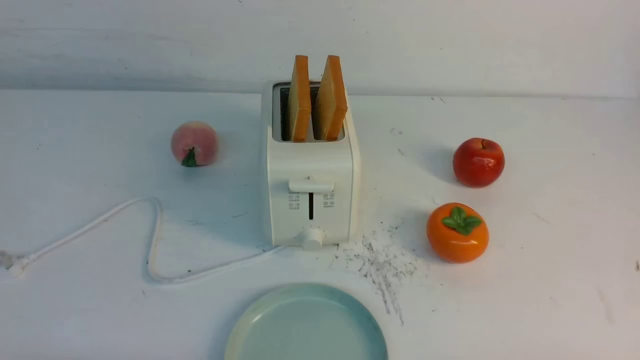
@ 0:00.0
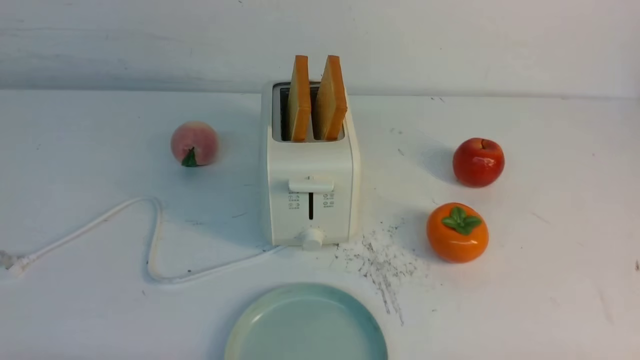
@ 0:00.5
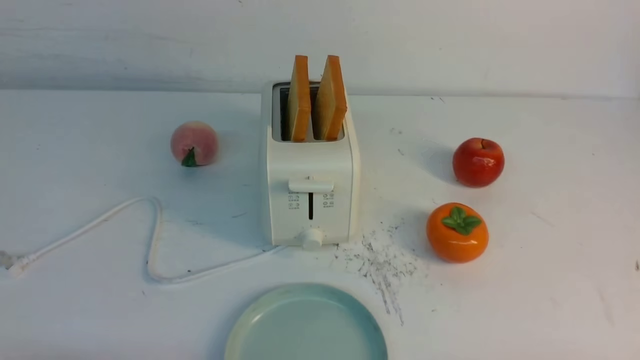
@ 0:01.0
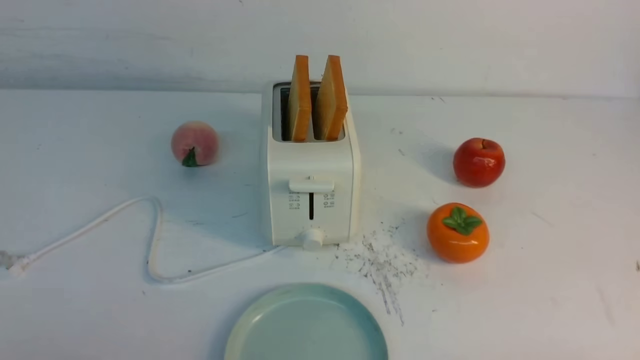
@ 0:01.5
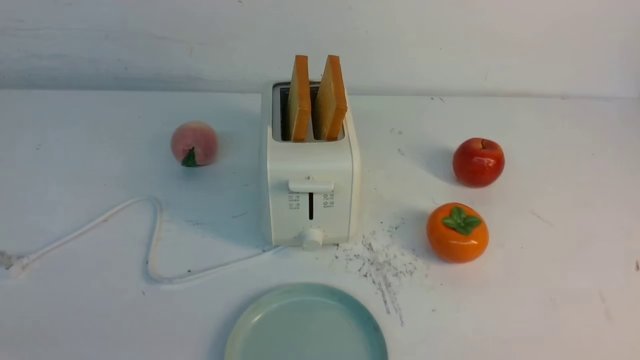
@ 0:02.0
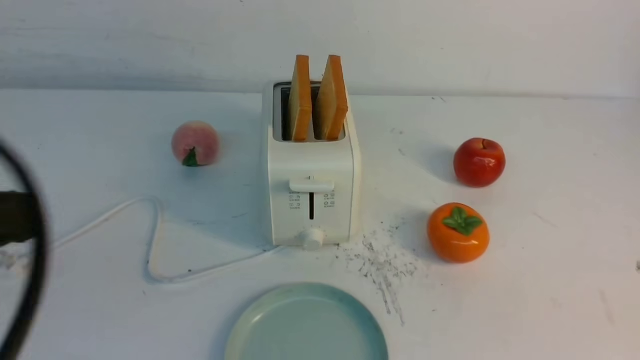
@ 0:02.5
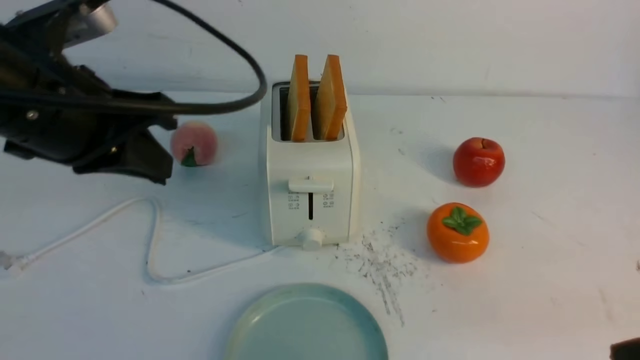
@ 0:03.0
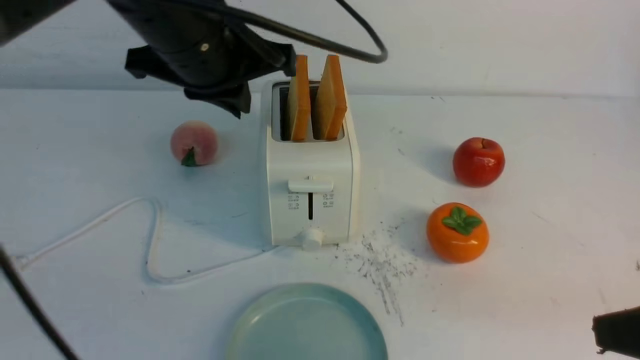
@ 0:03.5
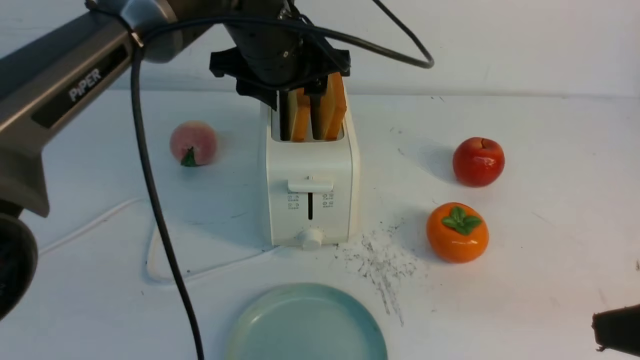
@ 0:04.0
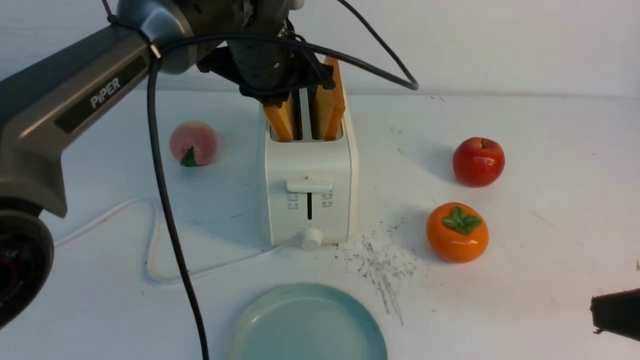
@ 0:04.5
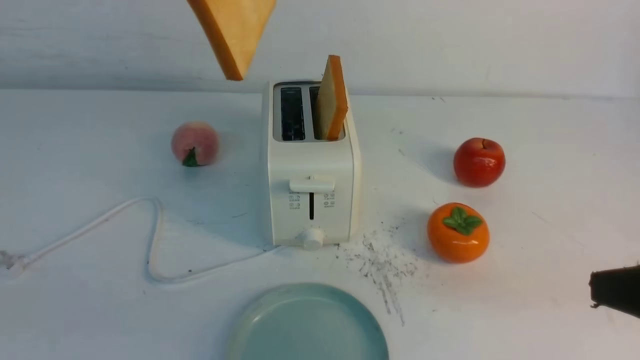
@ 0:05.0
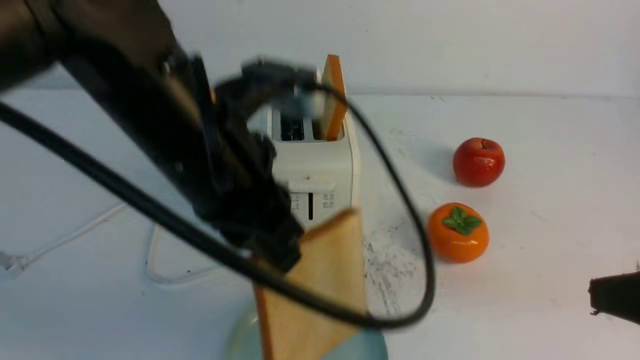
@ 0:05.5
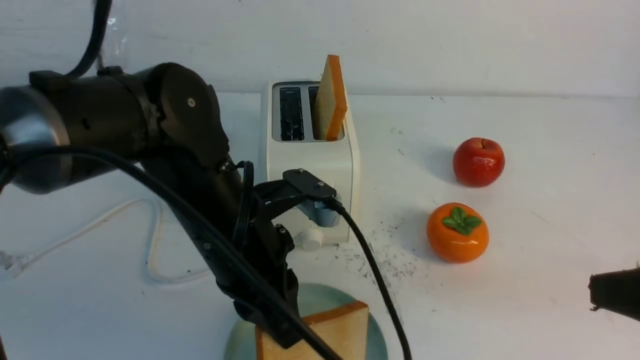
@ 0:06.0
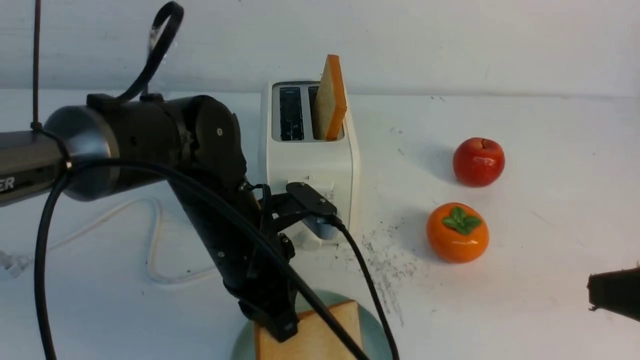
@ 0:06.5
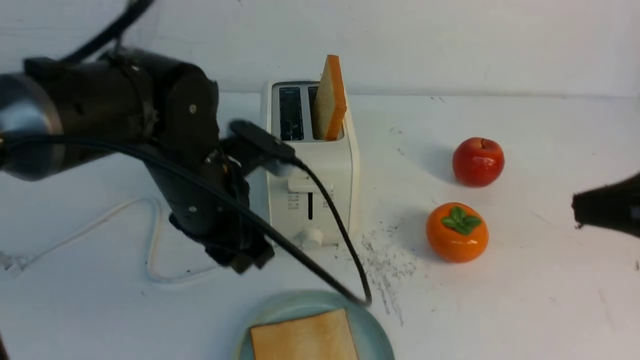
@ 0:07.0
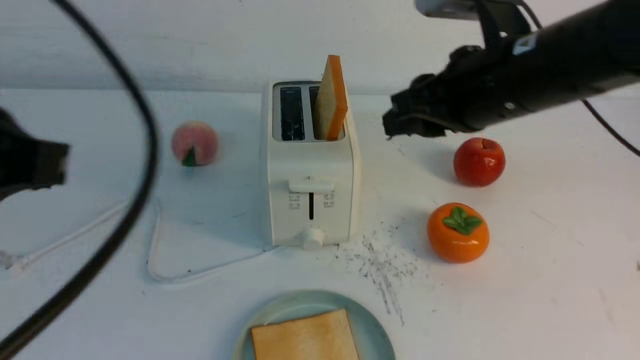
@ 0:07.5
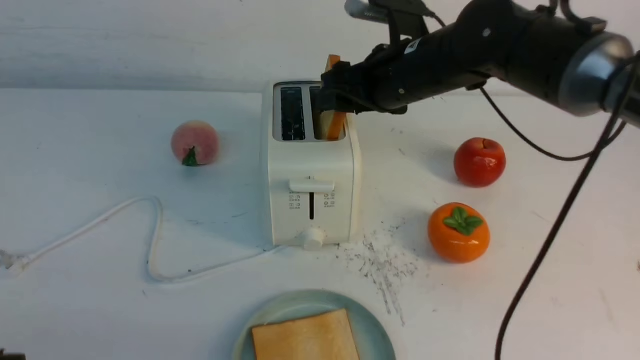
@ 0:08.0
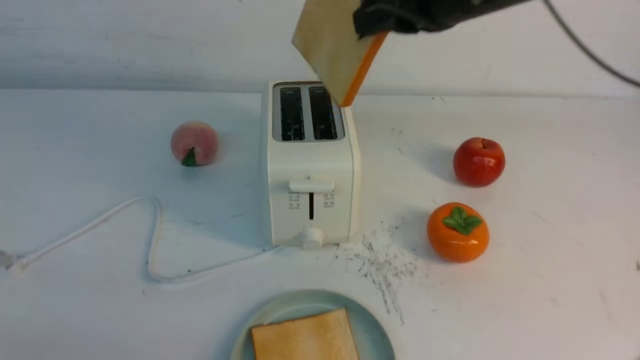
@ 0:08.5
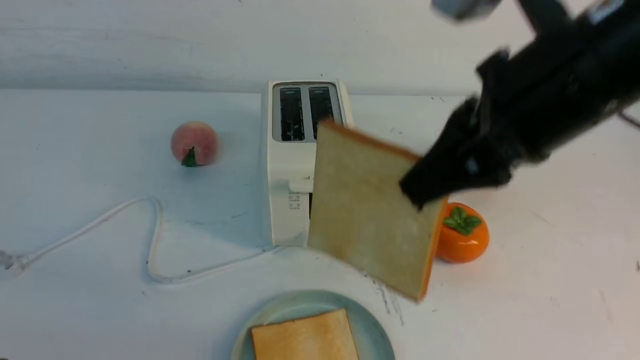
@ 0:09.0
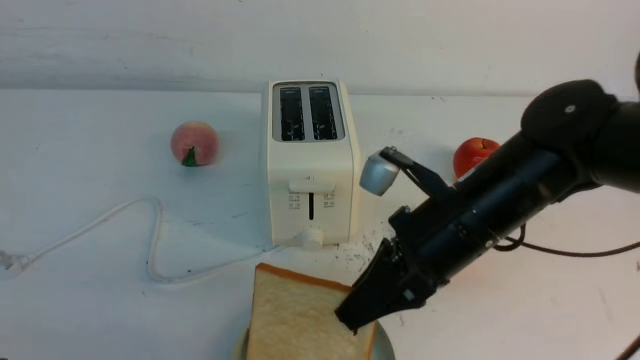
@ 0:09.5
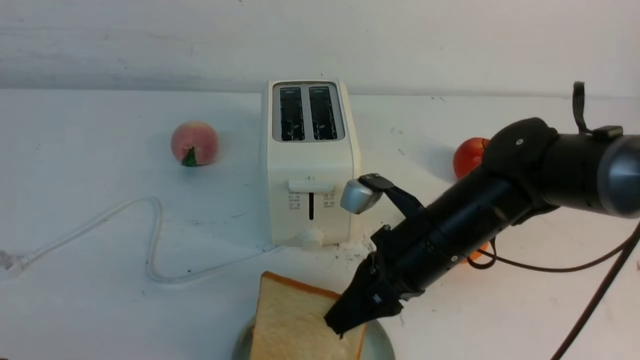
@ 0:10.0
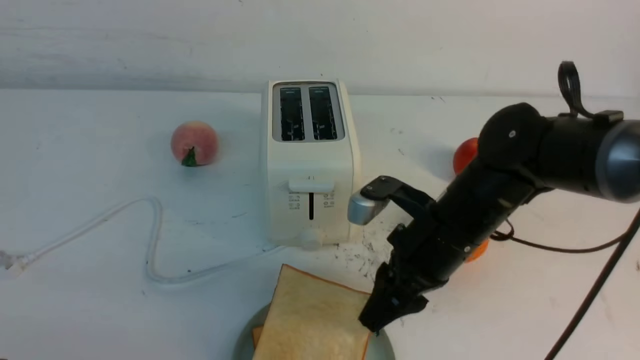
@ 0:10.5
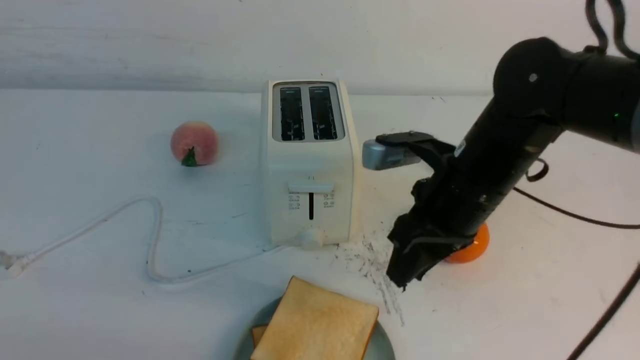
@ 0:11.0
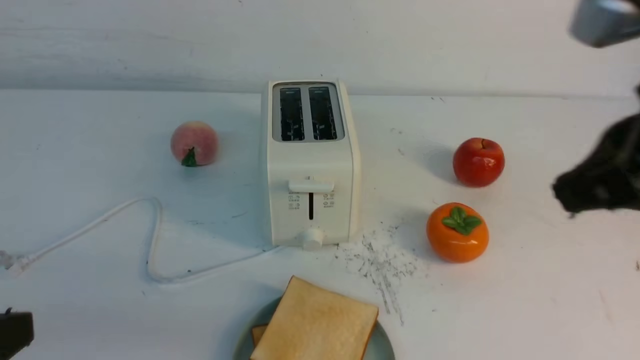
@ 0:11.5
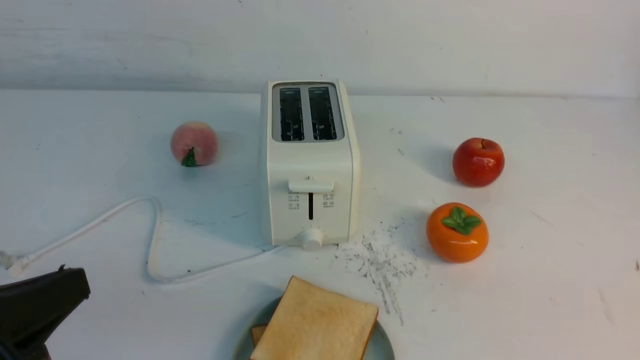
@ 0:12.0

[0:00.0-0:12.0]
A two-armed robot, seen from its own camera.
Task of the whole recording: take toasted bread from bread machine on white table place on plate.
Step, 0:00.0 to 0:04.5: use the left arm to take out a slice of bread.
Step, 0:05.0 to 0:06.5: use the left arm to put a slice of bread into the empty plate.
Step, 0:07.5 to 0:08.0: use the right arm to take out a slice of bread.
Step, 0:08.5 to 0:10.5: use the right arm to put a slice of bread into the plate.
0:02.0 to 0:04.0: The left gripper moves forward and to the right, about 40 cm, and opens. Meanwhile the right gripper goes about 15 cm upward, forward and to the left.
0:04.0 to 0:06.0: The left gripper heads backward and downward, covering some 15 cm, and closes up.
0:06.0 to 0:08.0: The right gripper travels forward and to the left by about 35 cm, and opens its fingers, while the left gripper heads backward and to the left, covering about 25 cm, and opens, then closes again.
0:08.0 to 0:10.0: The right gripper moves backward and downward, approximately 15 cm, and closes.
0:10.0 to 0:12.0: The right gripper shifts approximately 35 cm backward and to the right, and closes its fingers.

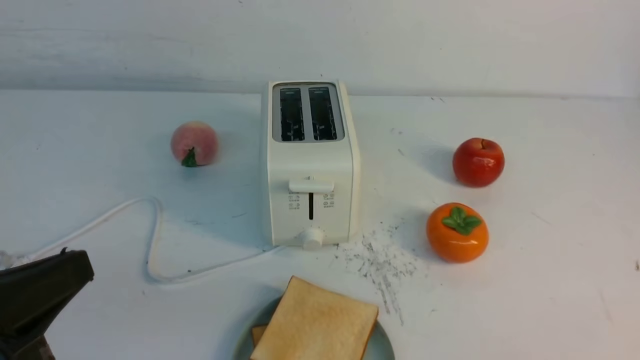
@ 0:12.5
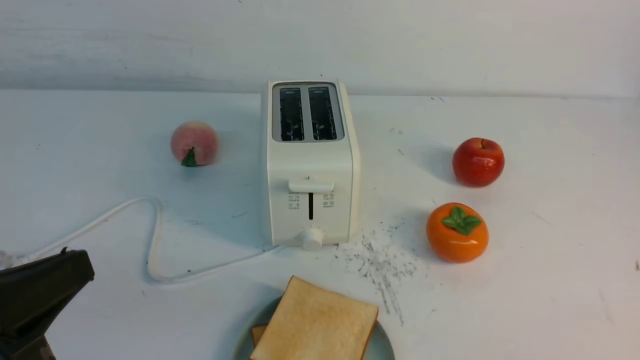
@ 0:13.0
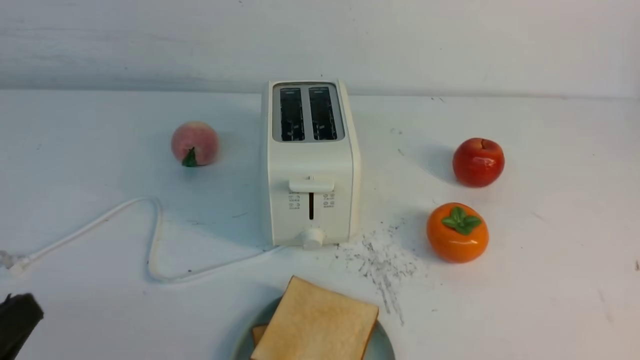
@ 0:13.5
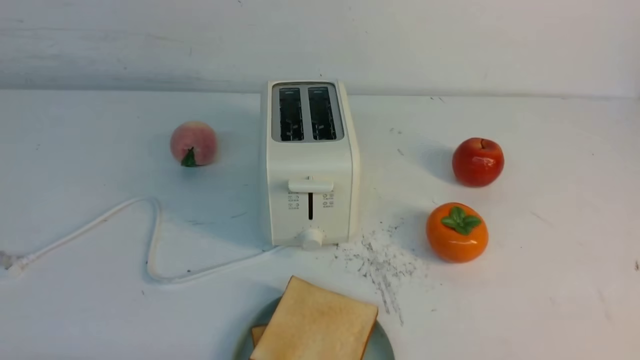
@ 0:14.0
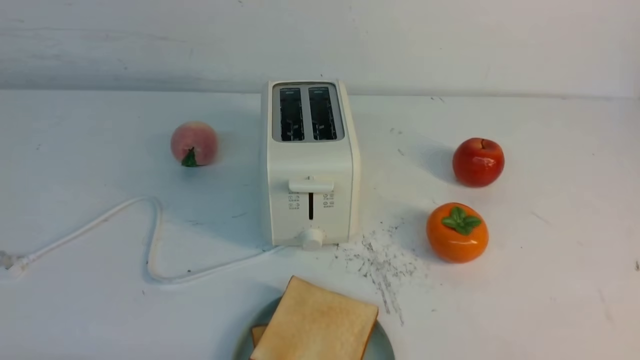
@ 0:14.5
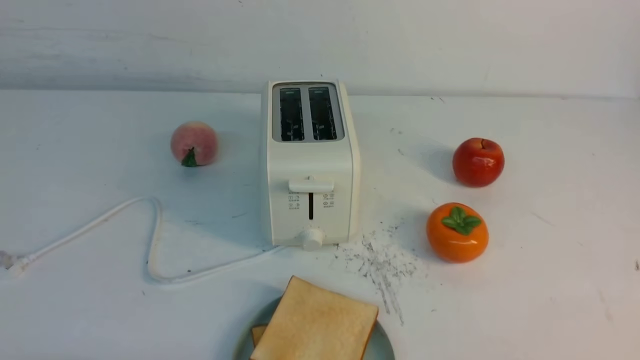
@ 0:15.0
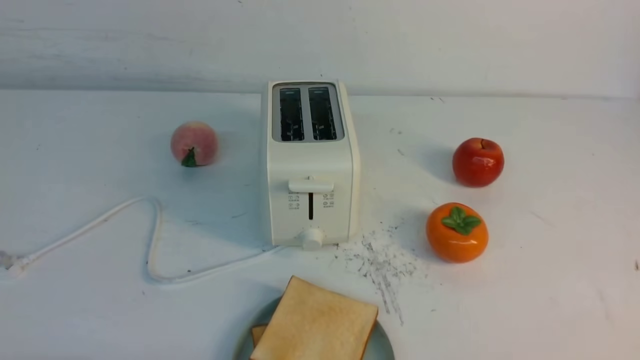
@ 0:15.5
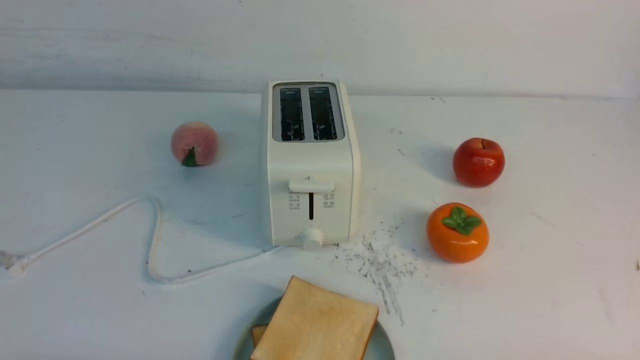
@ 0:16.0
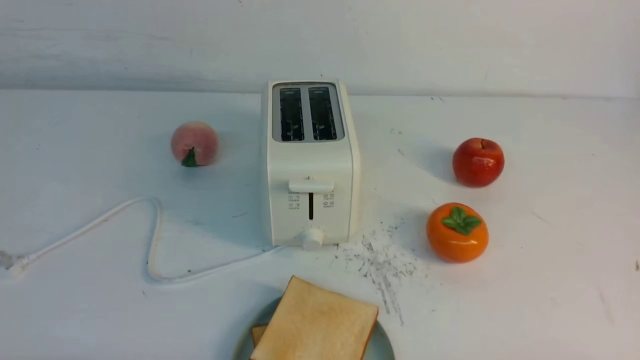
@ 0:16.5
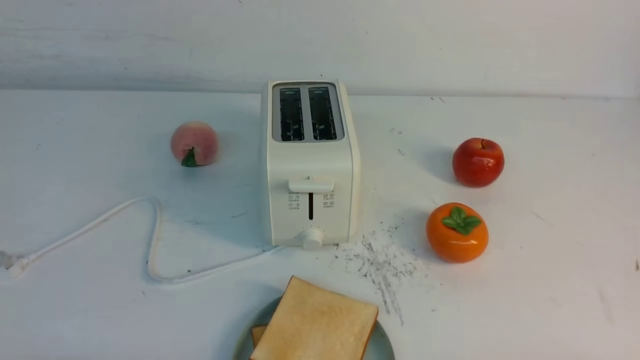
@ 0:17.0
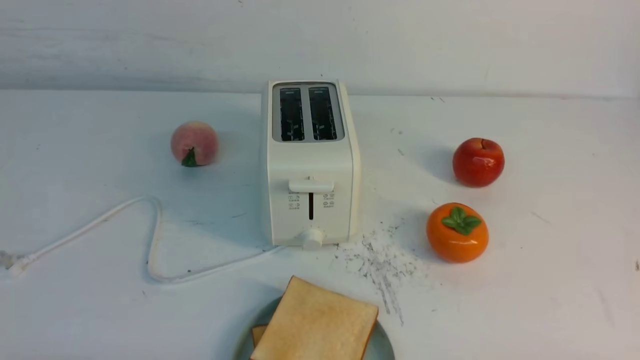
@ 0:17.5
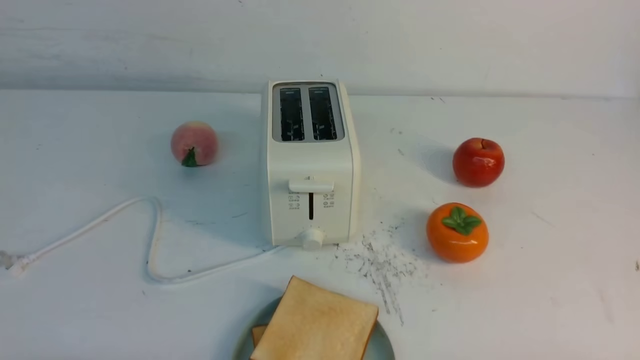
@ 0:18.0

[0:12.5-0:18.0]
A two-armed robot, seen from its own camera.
Task of the whole recording: take toasted bread from bread machine on white table place on plate.
0:12.5 to 0:14.5: The left gripper heads downward, covering approximately 15 cm.
0:16.0 to 0:18.0: Both grippers stay put.
